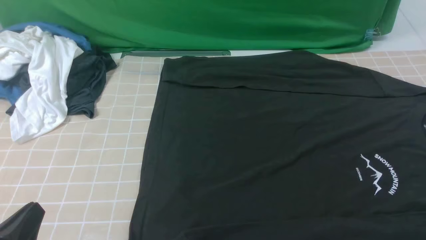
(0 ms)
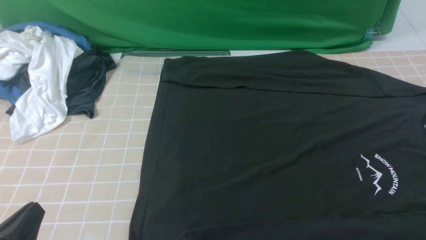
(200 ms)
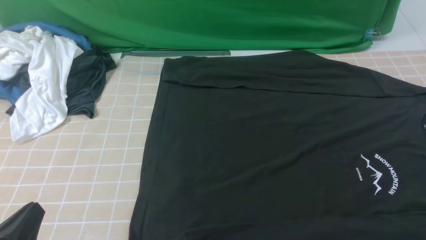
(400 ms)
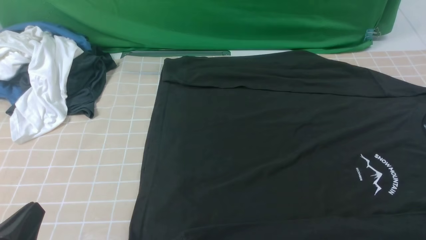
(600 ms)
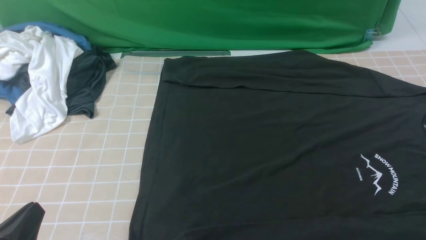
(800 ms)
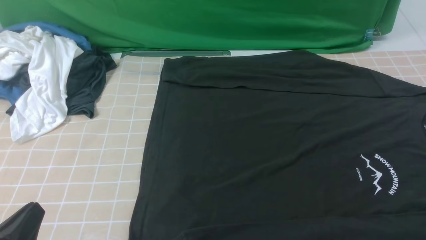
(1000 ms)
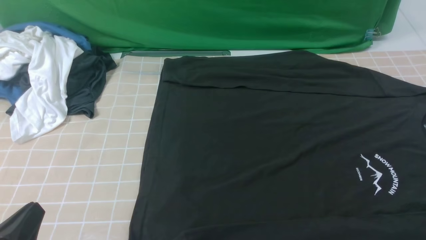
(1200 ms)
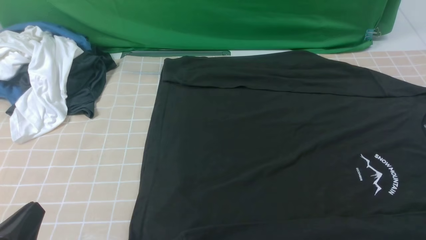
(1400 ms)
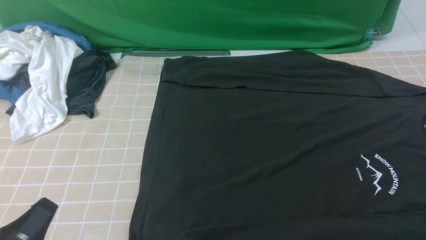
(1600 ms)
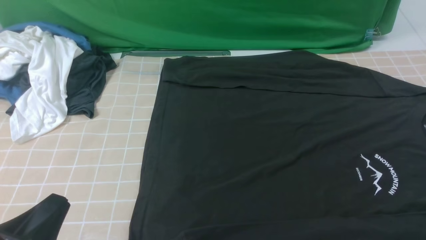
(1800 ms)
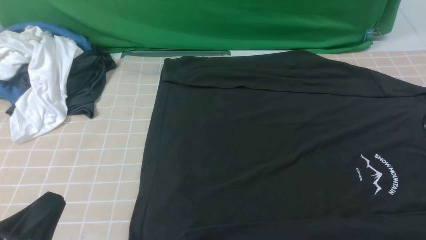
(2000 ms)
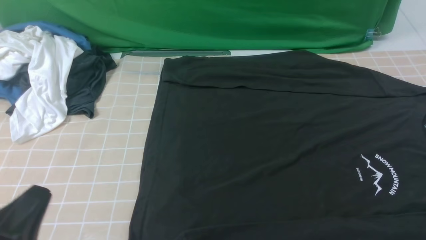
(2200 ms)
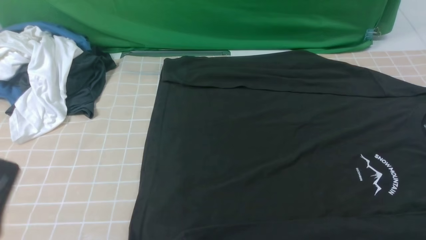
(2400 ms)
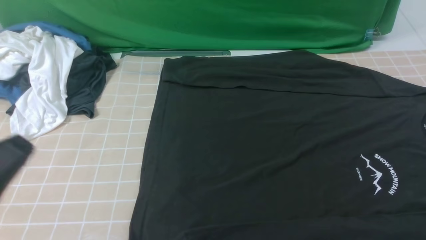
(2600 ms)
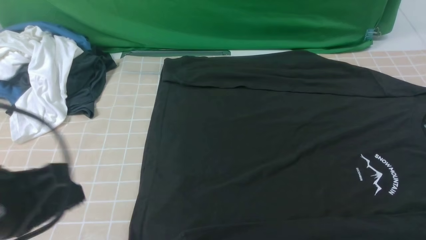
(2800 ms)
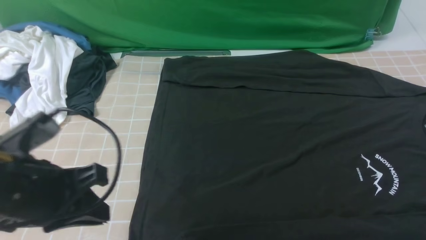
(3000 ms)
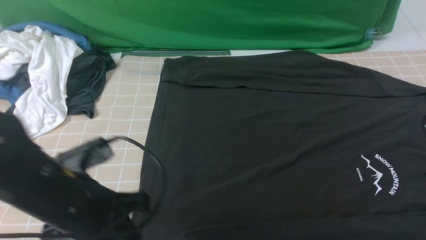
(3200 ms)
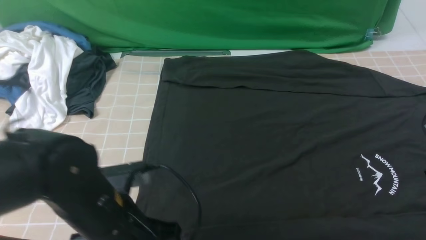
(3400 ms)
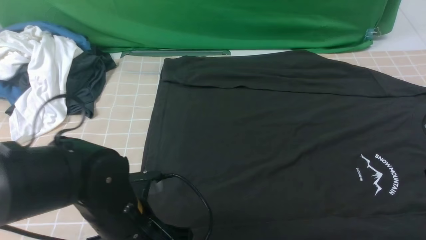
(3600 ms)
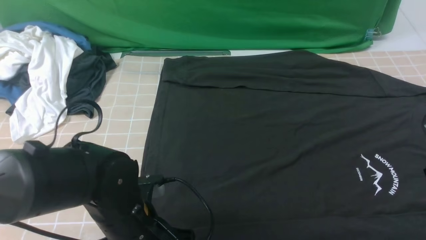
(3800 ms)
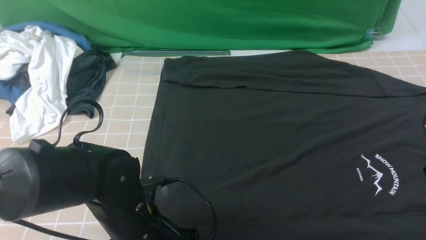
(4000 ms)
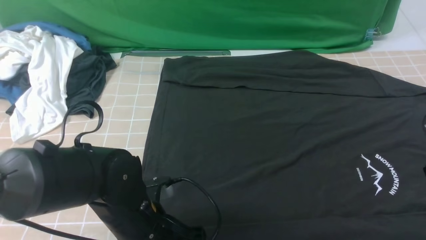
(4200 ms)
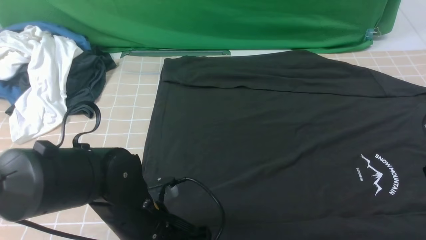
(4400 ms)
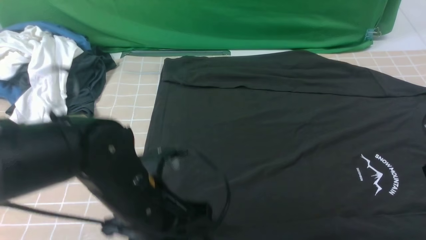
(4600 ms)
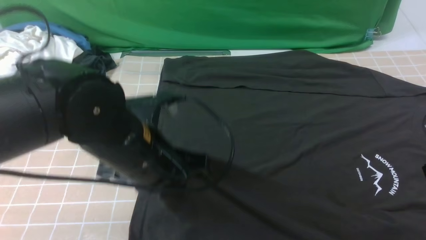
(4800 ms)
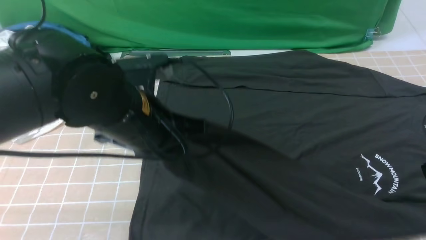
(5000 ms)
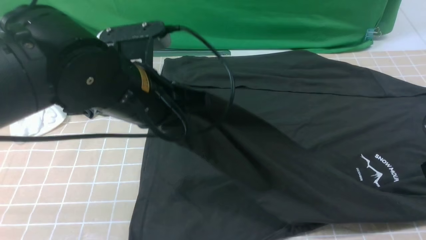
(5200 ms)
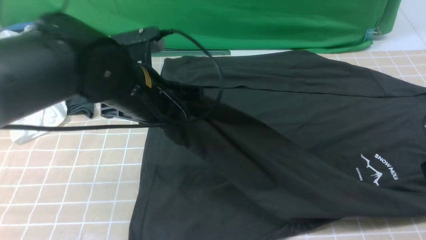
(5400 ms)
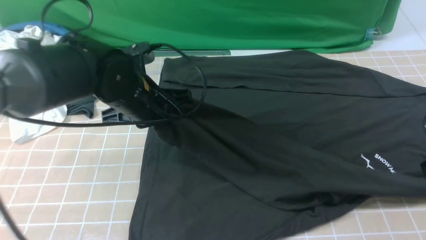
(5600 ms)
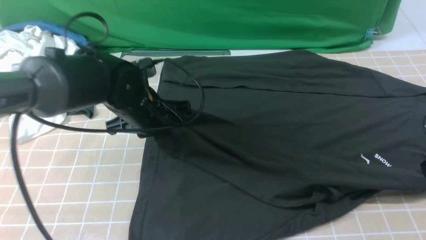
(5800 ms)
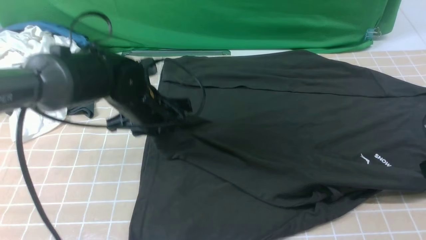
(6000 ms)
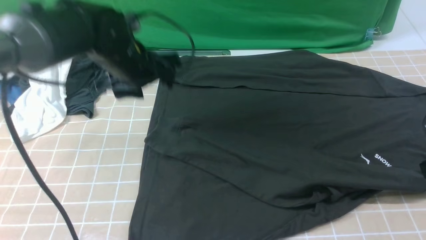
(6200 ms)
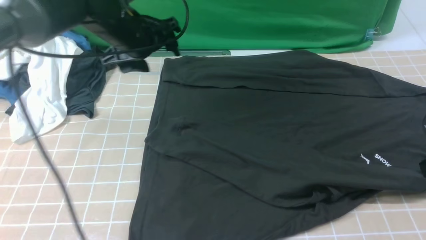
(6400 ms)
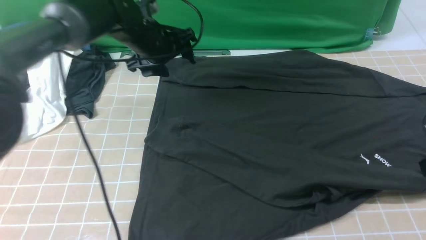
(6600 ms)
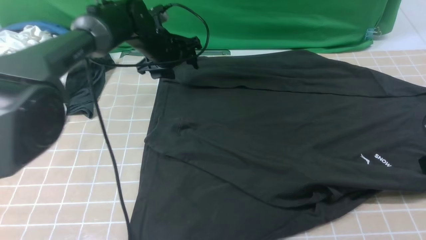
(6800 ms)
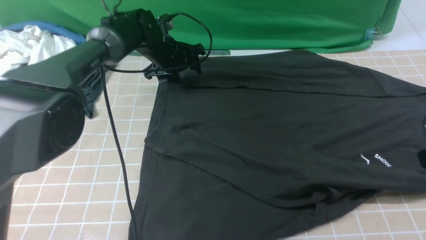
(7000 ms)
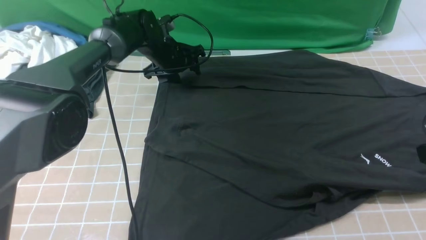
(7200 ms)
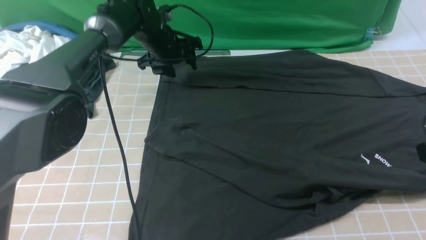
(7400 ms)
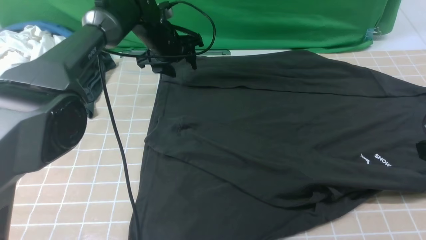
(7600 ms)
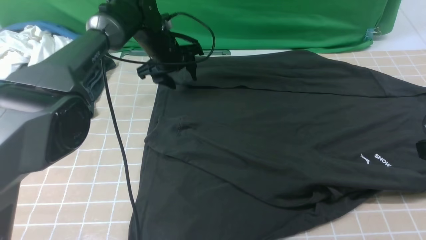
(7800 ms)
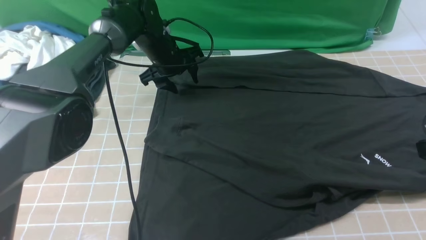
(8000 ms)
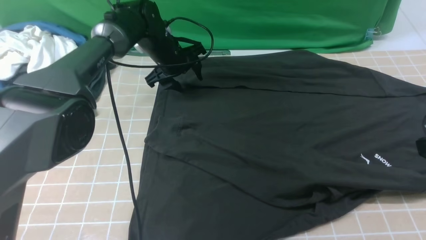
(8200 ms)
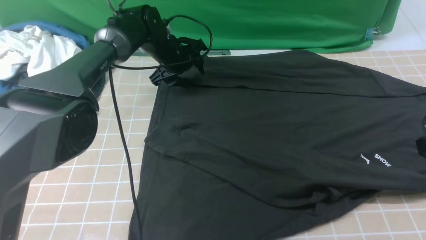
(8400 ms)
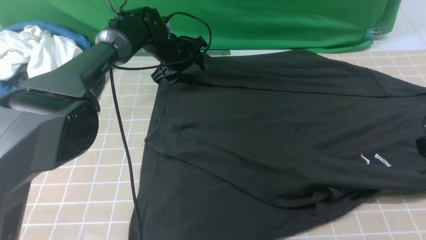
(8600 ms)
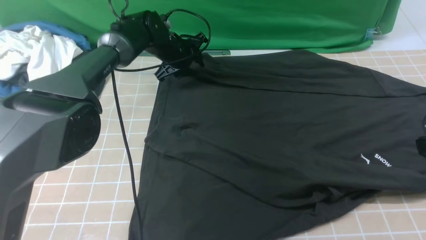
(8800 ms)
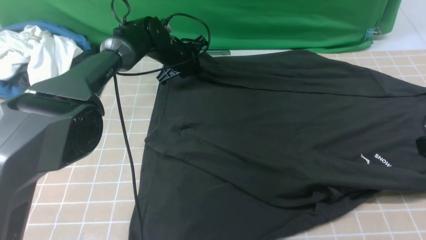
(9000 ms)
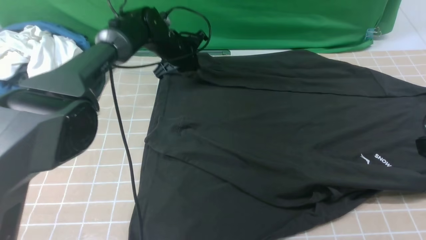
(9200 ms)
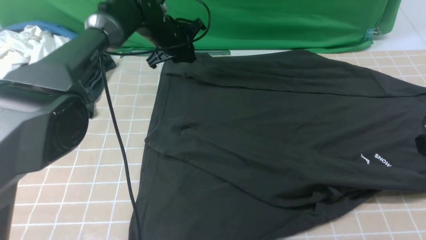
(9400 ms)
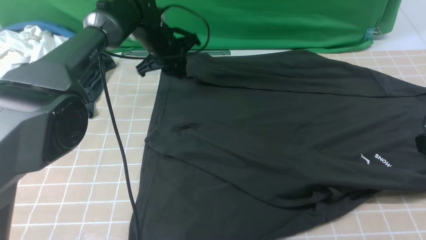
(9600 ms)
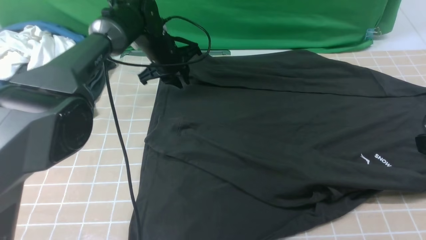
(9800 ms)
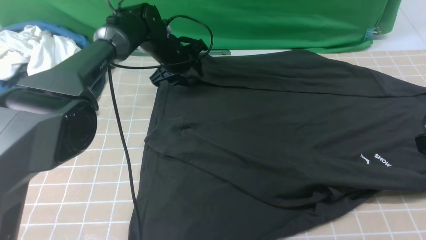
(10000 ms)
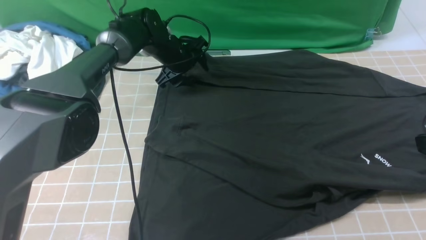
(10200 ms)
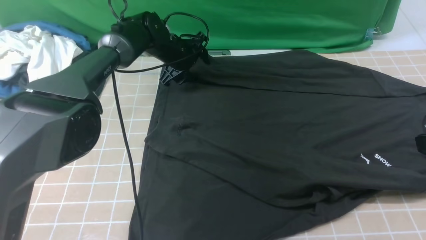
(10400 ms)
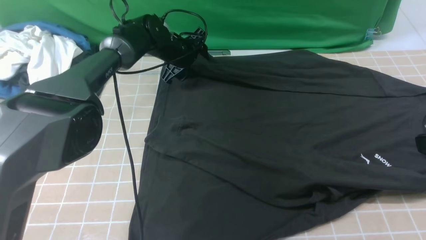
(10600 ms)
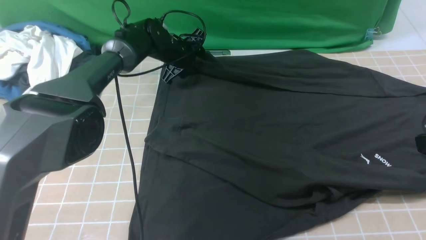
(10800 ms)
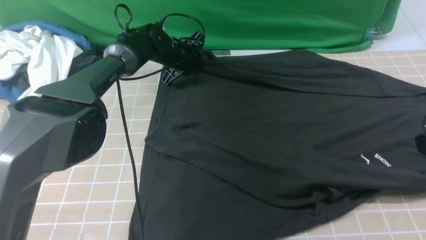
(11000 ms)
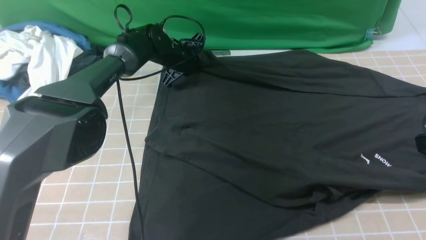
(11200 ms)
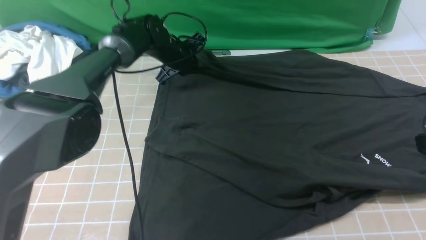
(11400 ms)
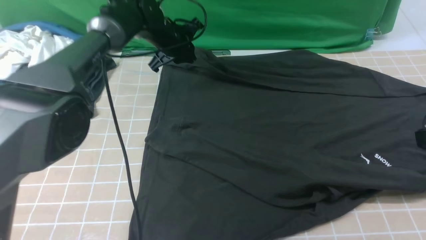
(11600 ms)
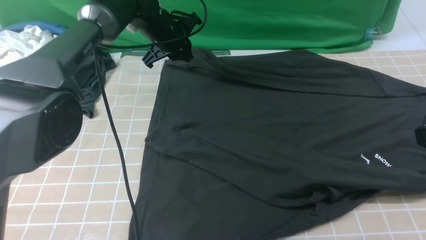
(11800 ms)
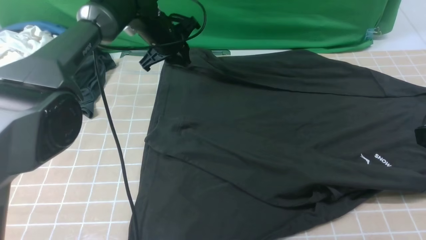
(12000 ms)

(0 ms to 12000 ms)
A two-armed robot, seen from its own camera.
Step, 0 ms - 4200 ms: use the left arm to clamp the cuff closest to it.
Step, 4400 ms - 6000 ms: use the left arm to drag and place the cuff at the centered position on the left edge of the fabric.
1600 ms - 3000 ms: The left gripper heads forward and upward, covering some 15 cm.
3000 ms - 4400 ms: The left gripper moves to the right and downward, roughly 15 cm, and opens, then closes once more.
4400 ms - 6000 ms: The left gripper moves forward, roughly 20 cm, and opens.
6000 ms - 7600 ms: The left gripper travels forward by approximately 15 cm.
7600 ms - 9000 ms: The left gripper closes up.
9000 ms - 10400 ms: The left gripper opens.
10400 ms - 12000 ms: The left gripper heads upward, covering about 5 cm, and closes.

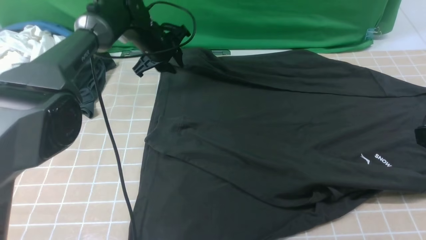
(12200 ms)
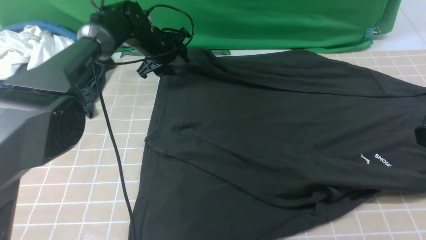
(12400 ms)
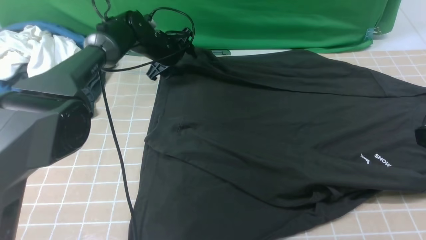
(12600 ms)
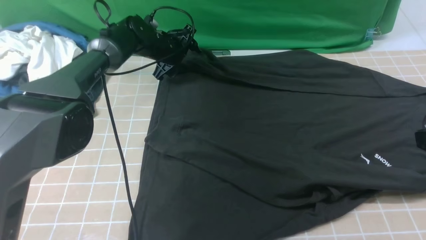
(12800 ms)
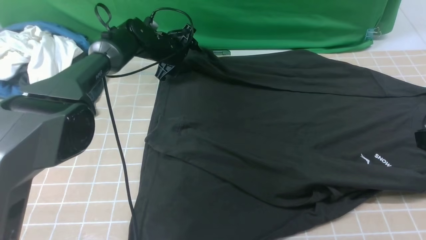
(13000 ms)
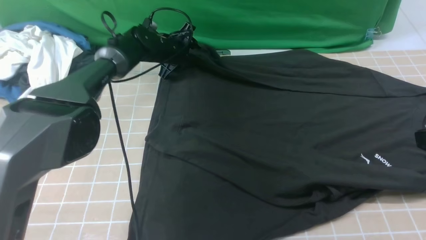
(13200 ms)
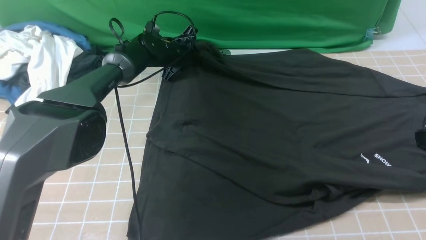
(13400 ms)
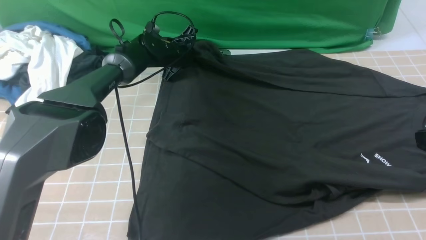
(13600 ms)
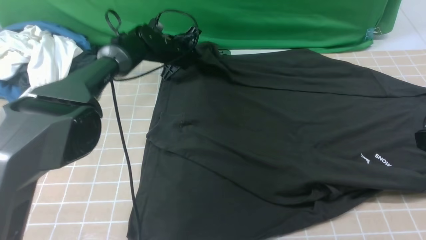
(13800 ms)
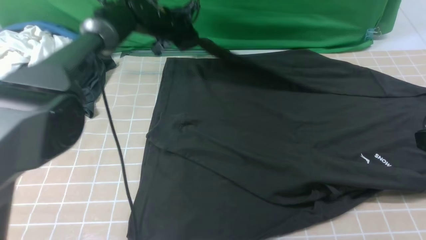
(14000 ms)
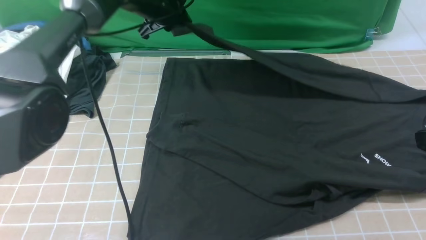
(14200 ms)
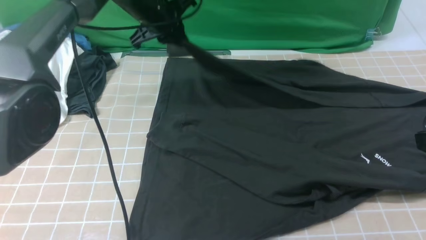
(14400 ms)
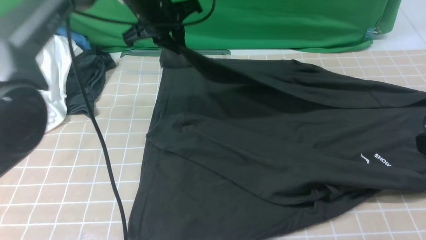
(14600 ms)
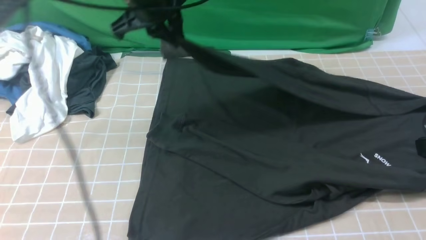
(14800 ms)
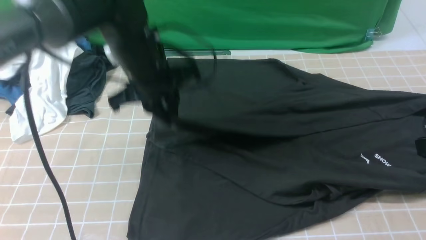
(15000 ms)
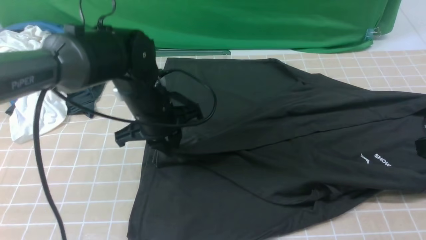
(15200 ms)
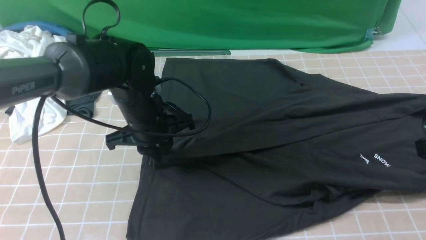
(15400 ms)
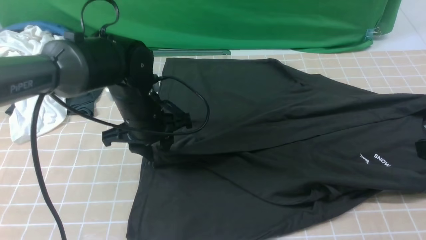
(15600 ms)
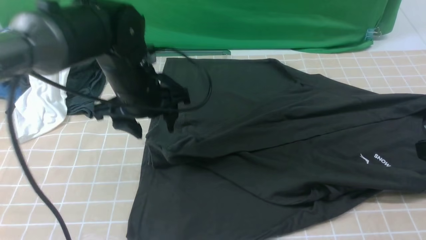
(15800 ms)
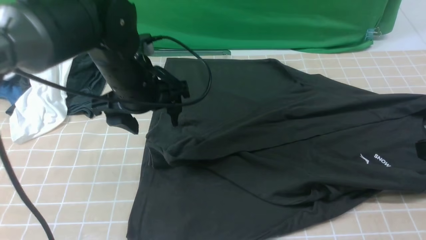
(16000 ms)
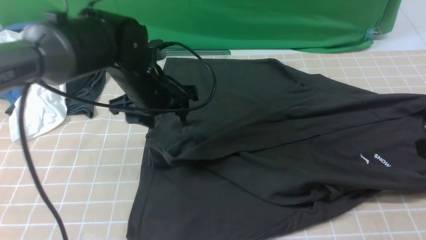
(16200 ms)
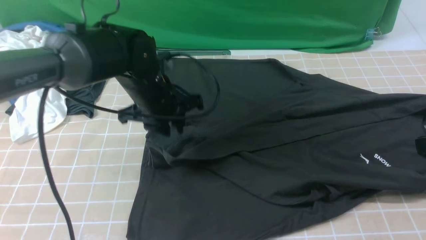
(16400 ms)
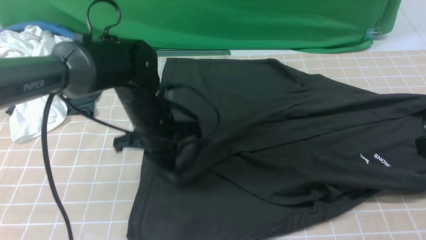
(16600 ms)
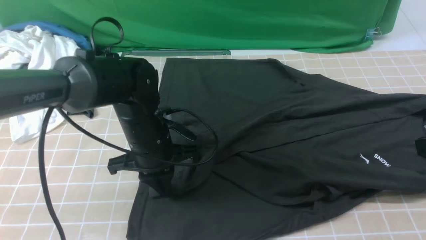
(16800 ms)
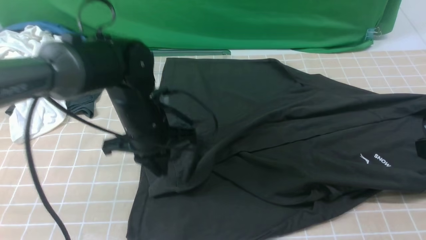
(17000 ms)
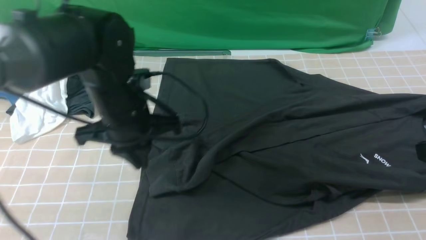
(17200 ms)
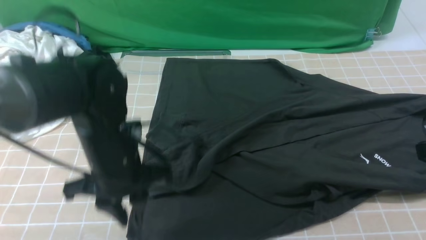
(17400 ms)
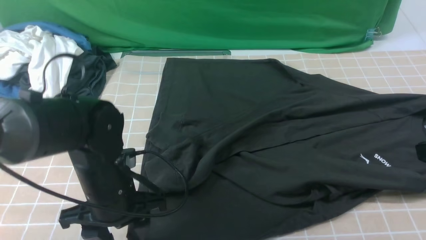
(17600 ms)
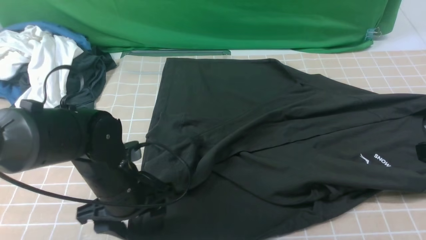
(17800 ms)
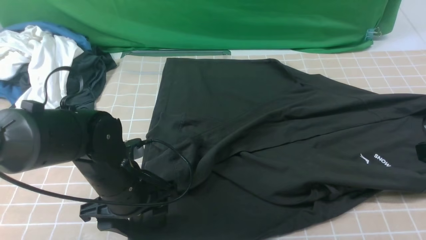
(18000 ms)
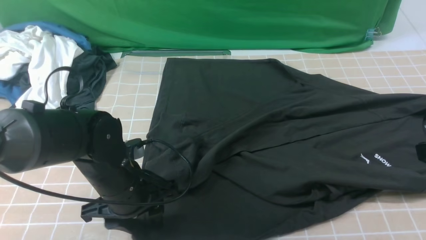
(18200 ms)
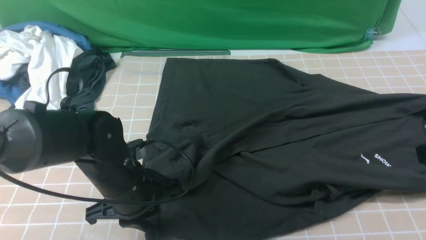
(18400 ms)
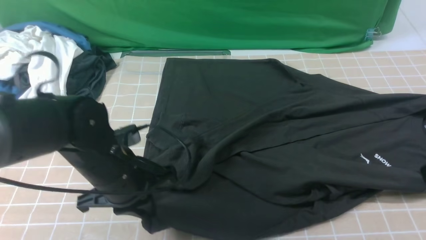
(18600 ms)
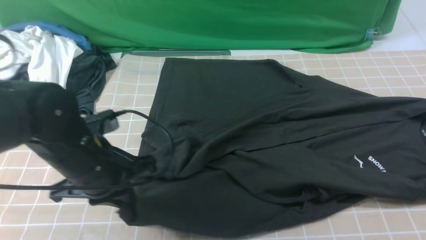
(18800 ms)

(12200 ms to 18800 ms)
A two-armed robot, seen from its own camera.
Step, 13800 ms - 17000 ms: use the left arm to drag and drop the cuff onto the cuff closest to the left arm.
12200 ms - 13800 ms: The left gripper closes up.
13800 ms - 15400 ms: The left gripper travels backward by roughly 25 cm.
15400 ms - 17200 ms: The left gripper moves backward, roughly 5 cm, and opens and closes again.
17200 ms - 18800 ms: The left gripper changes place by some 5 cm, and opens, then closes once more.
